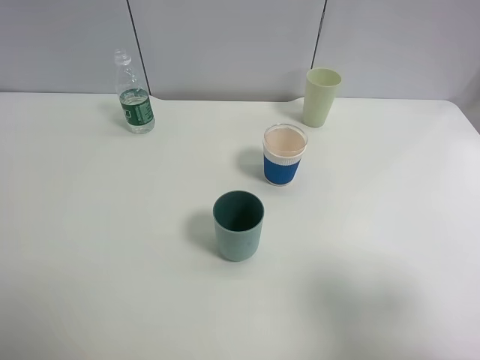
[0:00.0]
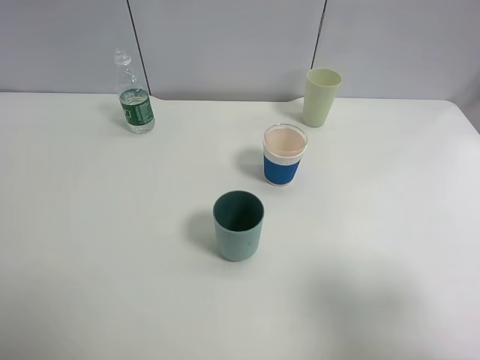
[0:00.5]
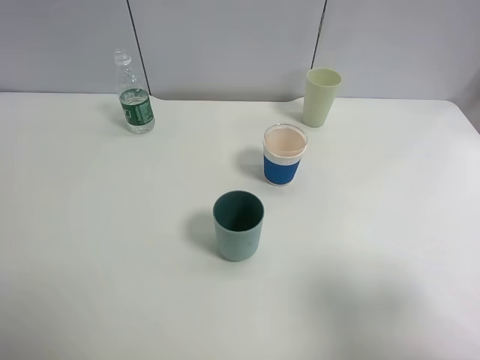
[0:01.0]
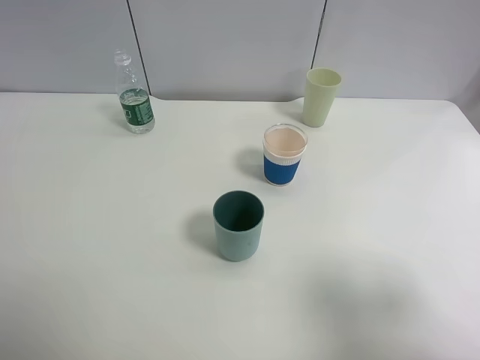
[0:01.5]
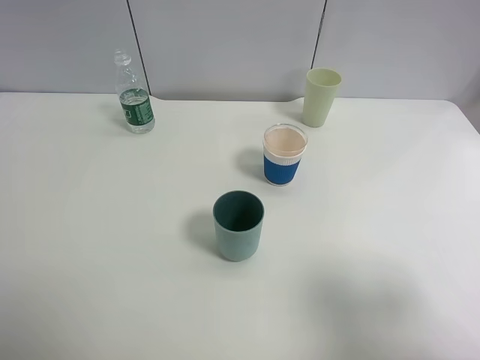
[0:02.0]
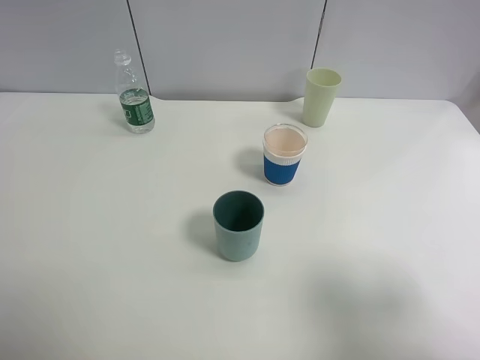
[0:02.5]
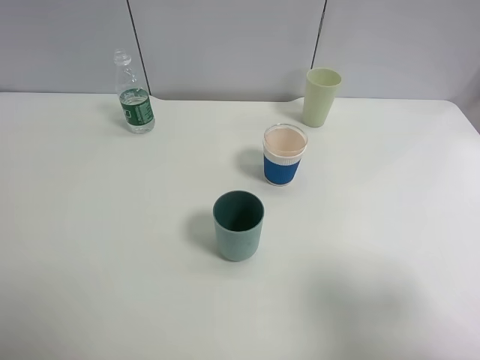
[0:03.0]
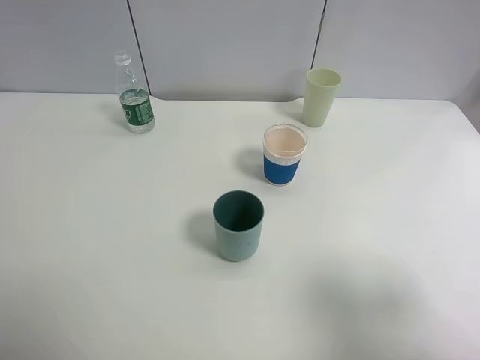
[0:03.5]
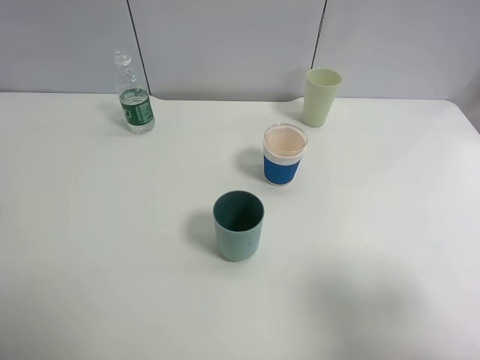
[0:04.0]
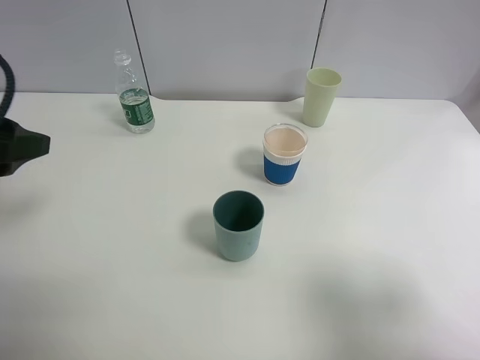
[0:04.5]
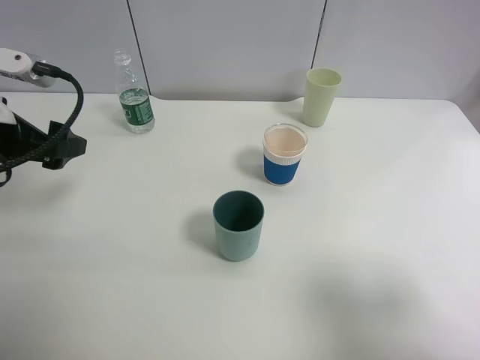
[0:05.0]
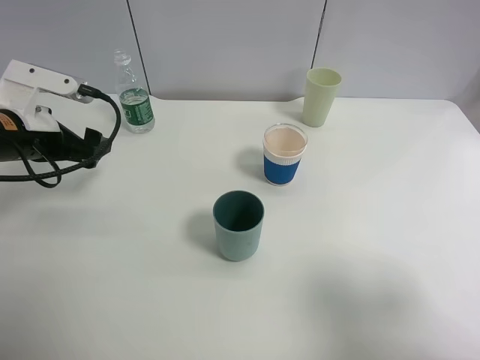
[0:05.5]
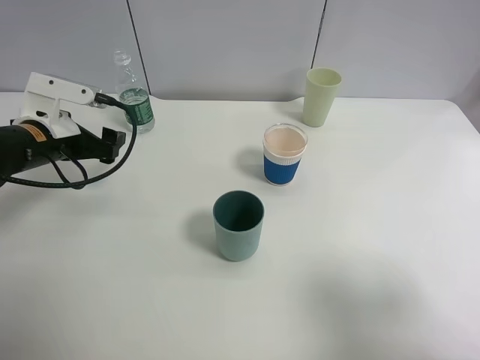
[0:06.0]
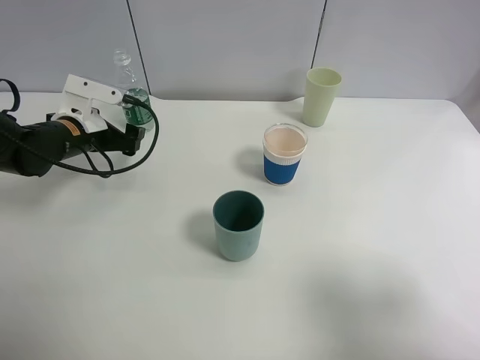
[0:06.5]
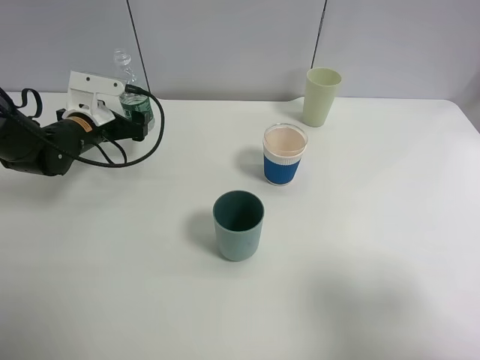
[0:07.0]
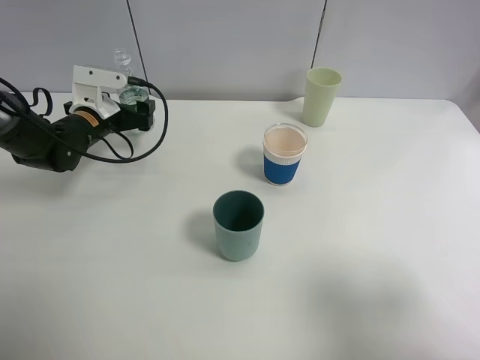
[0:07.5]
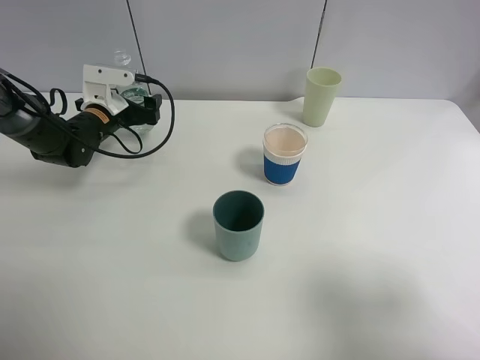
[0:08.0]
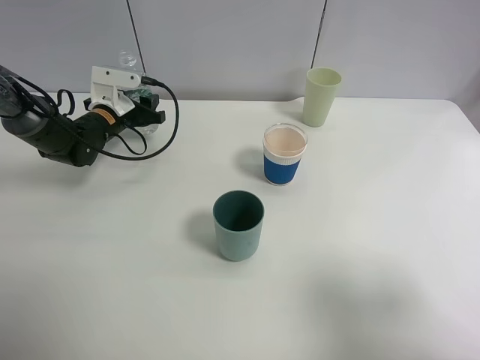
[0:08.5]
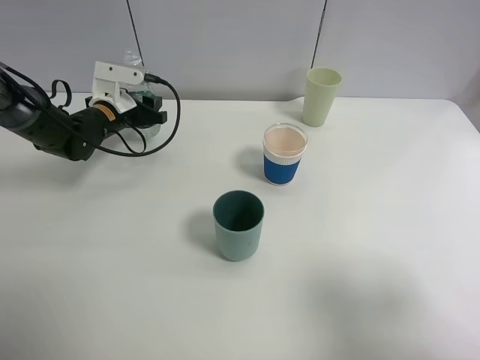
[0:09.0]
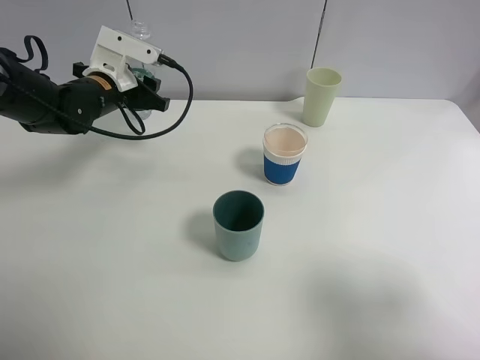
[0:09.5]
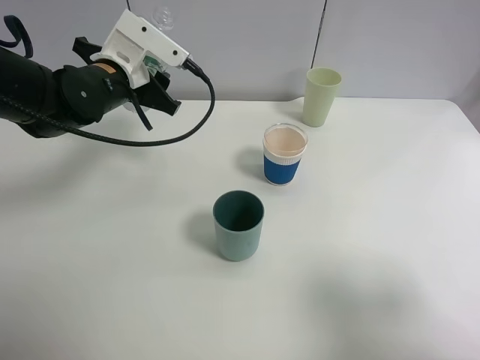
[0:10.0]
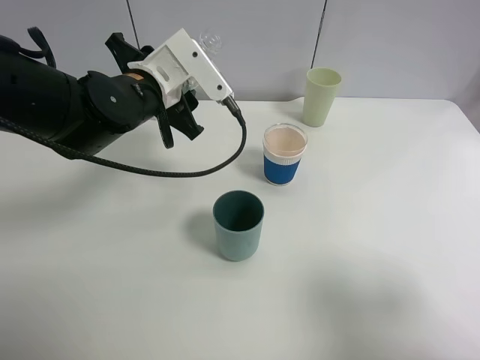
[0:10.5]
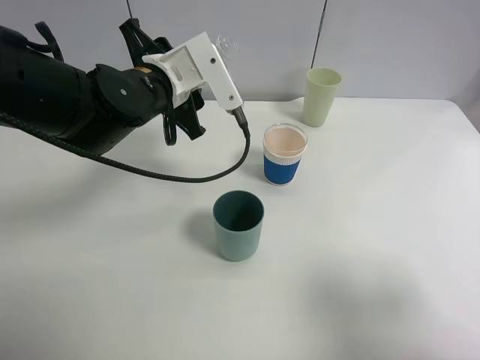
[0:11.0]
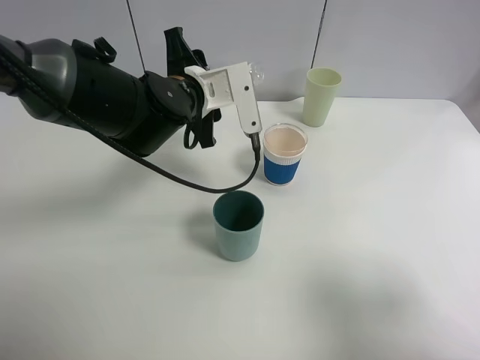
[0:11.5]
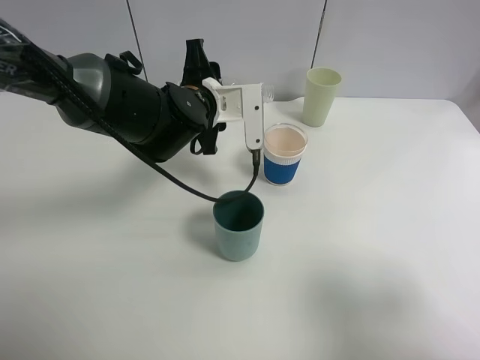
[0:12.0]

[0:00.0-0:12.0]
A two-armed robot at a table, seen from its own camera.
Task of the whole recording: use a clamp to hold the bottle of the drink, pour the beverage into a random cup, then clamp the cup containing the drink and pour the drink into another random cup.
Step, 0:00.0 to 0:09.5: Pick up the water bottle with left gripper.
0:00.0 to 0:02.0: The two grippers keep their place.
0:04.0 to 0:06.0: The left gripper shifts some 25 cm forward and downward.
0:06.0 to 0:08.0: The left gripper moves forward and downward, approximately 15 cm.
0:08.0 to 0:10.0: The left gripper heads upward, to the right and backward, covering roughly 15 cm, and closes its fingers.
0:10.0 to 0:12.0: The left gripper shifts approximately 10 cm to the right.

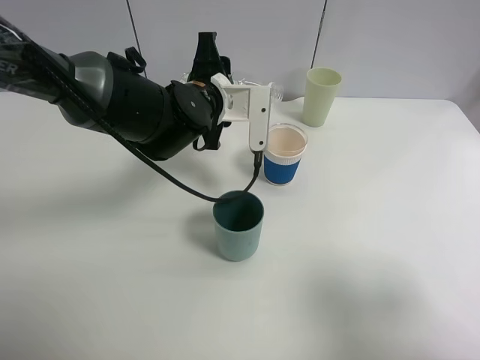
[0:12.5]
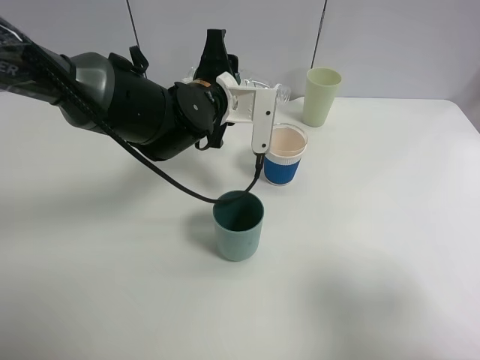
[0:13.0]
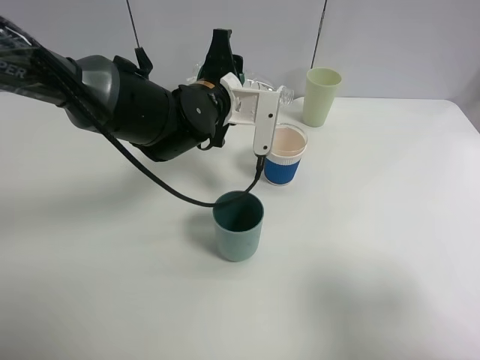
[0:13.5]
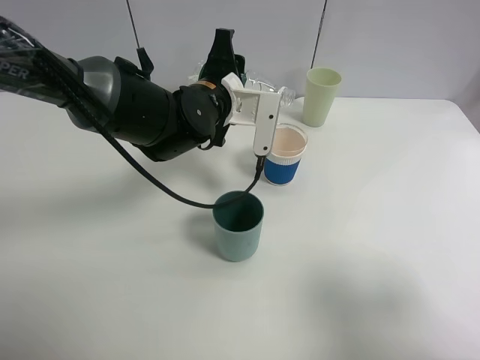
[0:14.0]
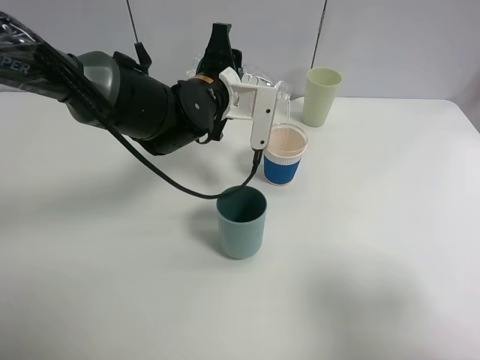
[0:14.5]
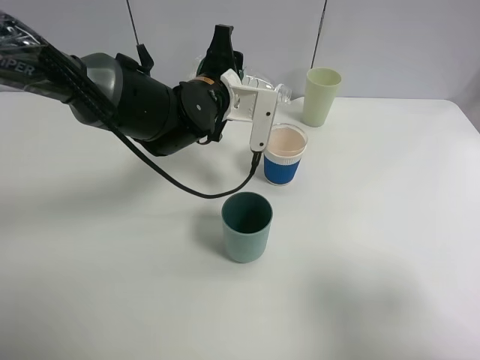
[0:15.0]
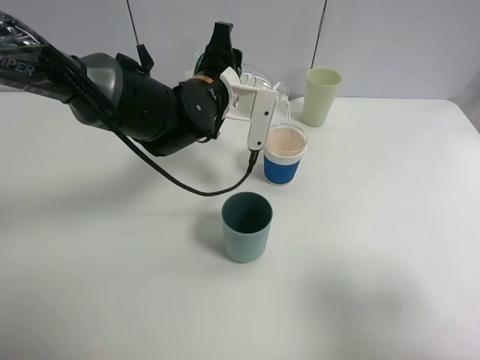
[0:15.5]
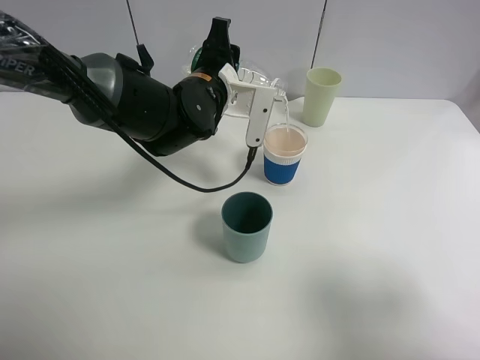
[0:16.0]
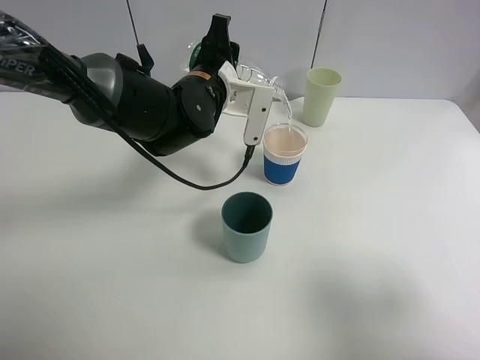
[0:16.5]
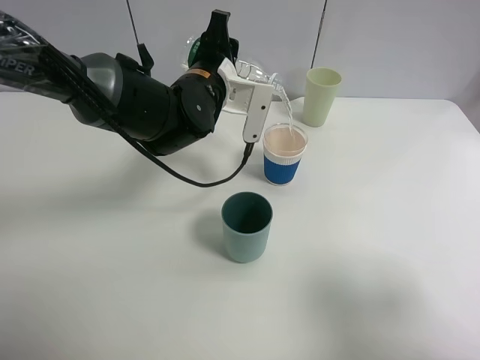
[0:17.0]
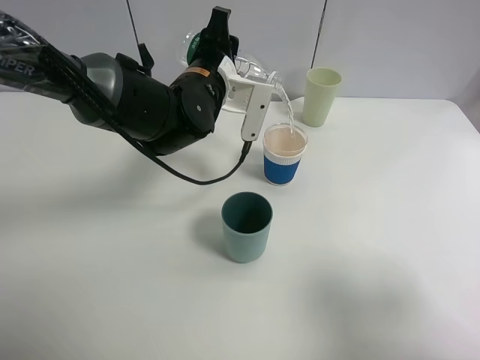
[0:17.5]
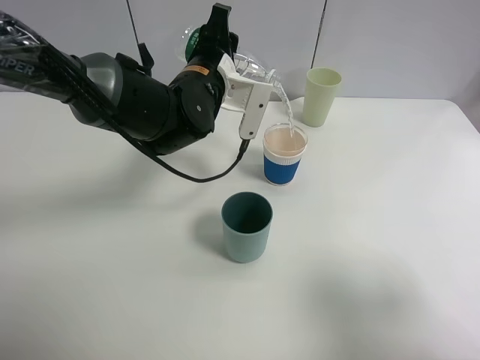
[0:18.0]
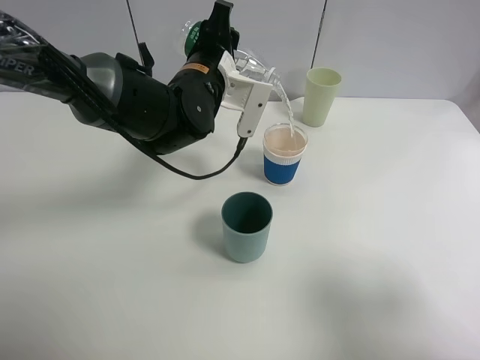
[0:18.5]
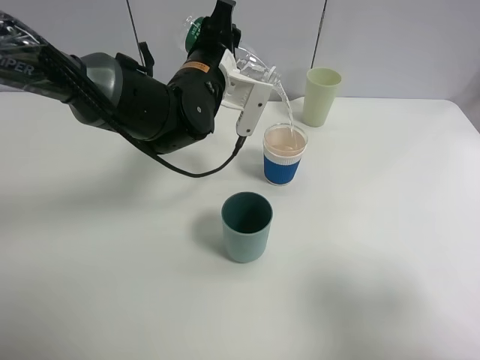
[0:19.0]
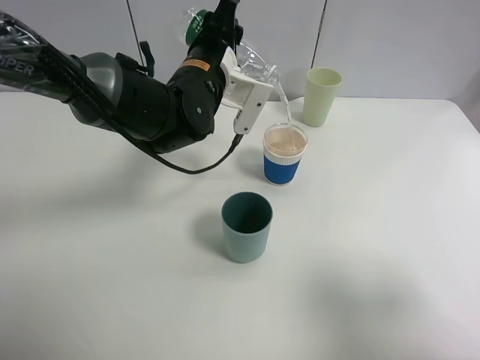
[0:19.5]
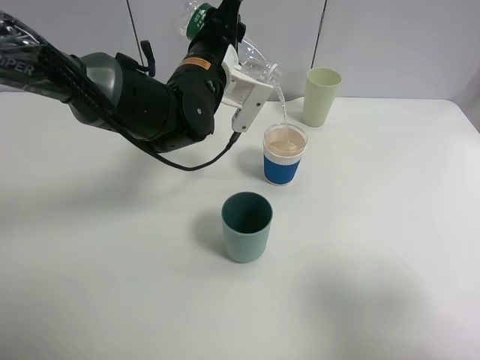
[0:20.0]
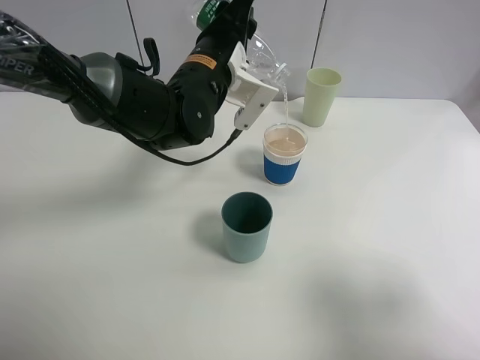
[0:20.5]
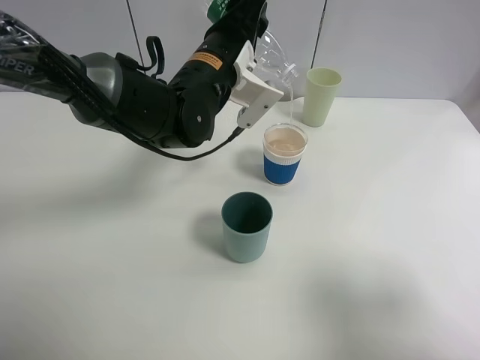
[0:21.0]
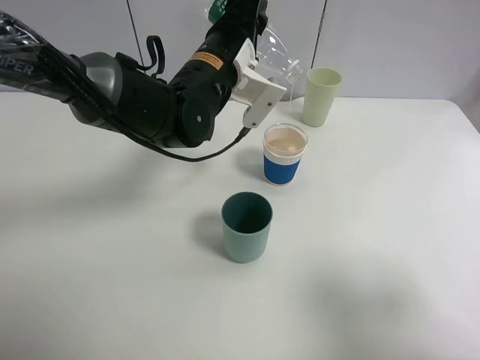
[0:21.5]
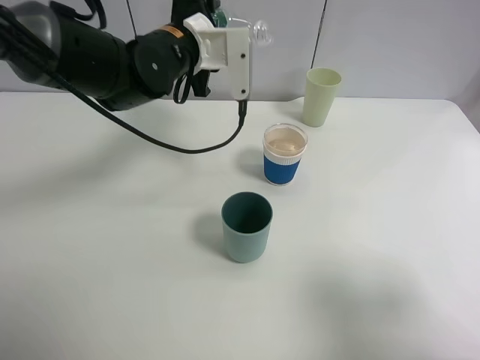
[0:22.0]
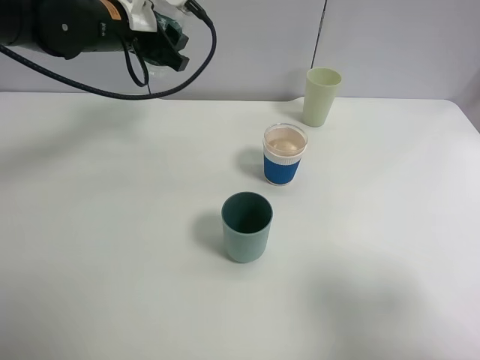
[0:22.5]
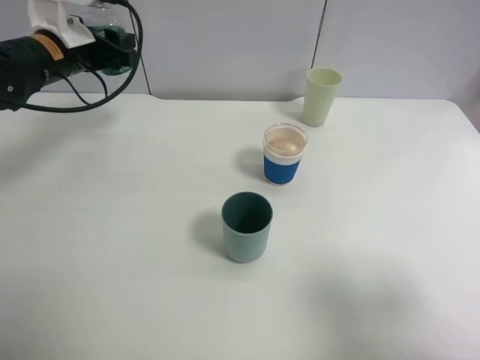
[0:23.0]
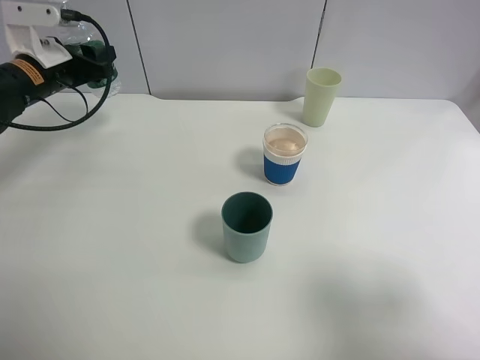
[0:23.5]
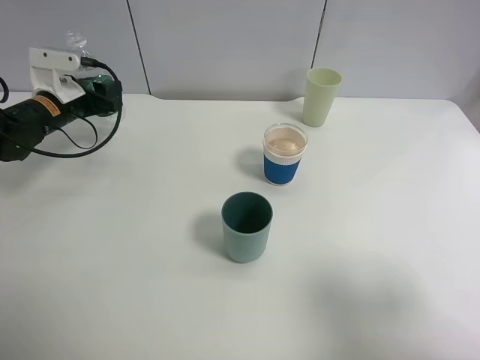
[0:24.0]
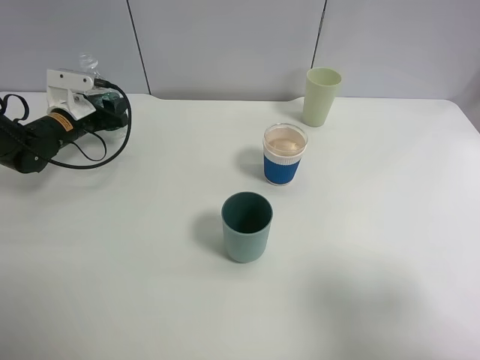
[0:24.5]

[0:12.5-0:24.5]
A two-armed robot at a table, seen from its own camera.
Task of the whole recording: use a clamp to hold the bottle of the drink, pour the beverage into a random cup, then clamp the cup containing the drink and pour the drink into another random cup.
Step, 0:12.5 to 0:21.5: Pour water into the paper cup with left gripper.
0:12.5 to 0:16.5: The grippers move only a little.
0:16.5 to 0:18.5: The grippers stay close to where they were, moving slightly.
0:18.5 to 0:20.5: The grippers move only a little.
0:20.5 to 0:22.5: The left gripper shifts roughly 10 cm to the left.
0:22.5 to 0:24.5: The left gripper moves downward and to the left, approximately 20 cm.

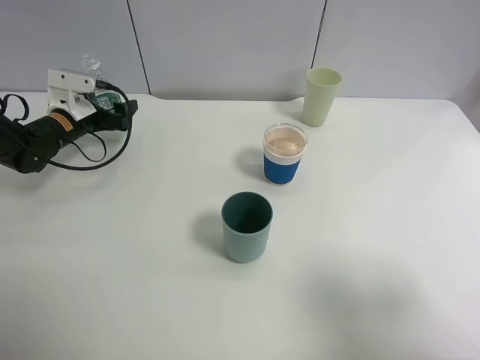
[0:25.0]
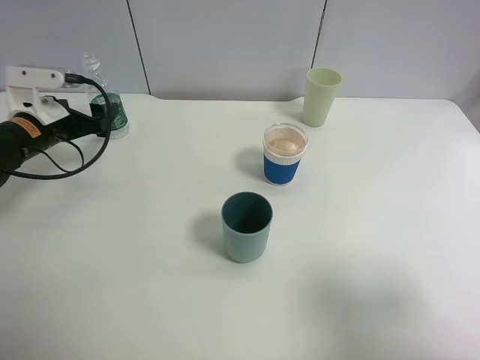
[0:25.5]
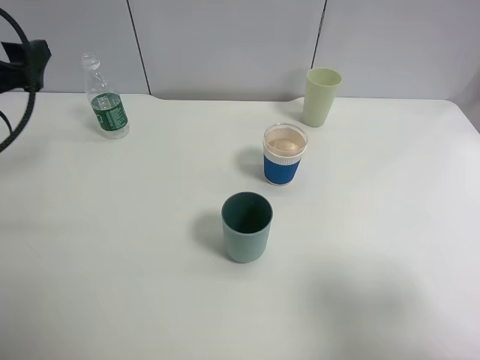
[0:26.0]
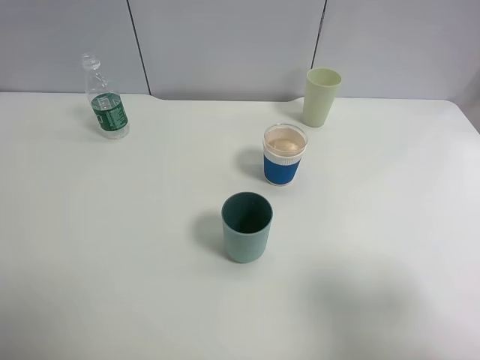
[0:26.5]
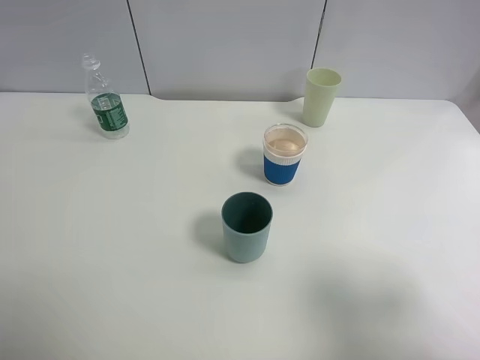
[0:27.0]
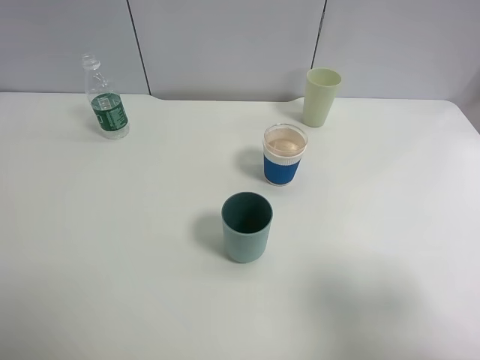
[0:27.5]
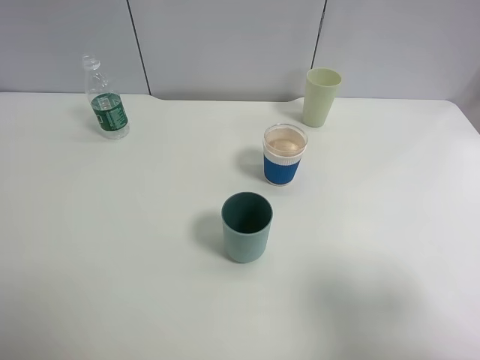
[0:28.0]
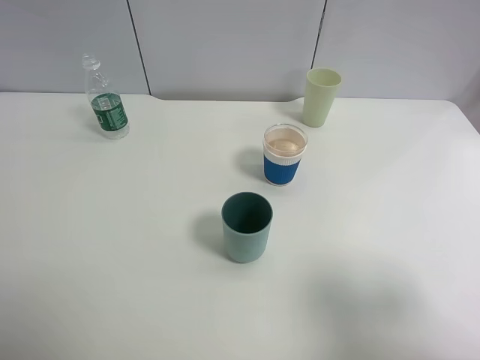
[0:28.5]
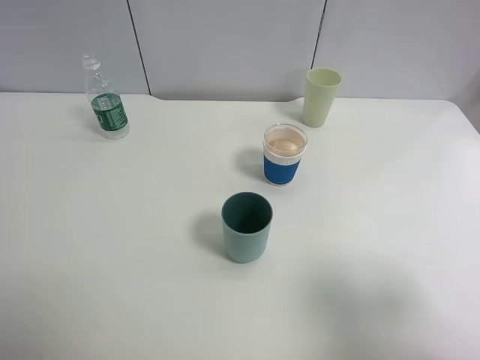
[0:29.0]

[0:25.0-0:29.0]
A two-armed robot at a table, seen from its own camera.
Task of the whole recording: use a clamp to hold the bottle of the drink, pour the beverage into a random cup, then clamp the cup containing the drink and pour the drink into another random cup.
0:25.0 to 0:27.0: The left gripper travels backward and upward by roughly 50 cm.
